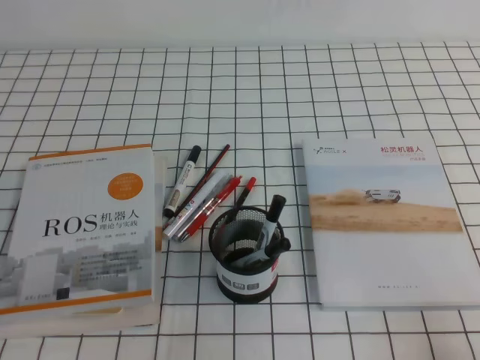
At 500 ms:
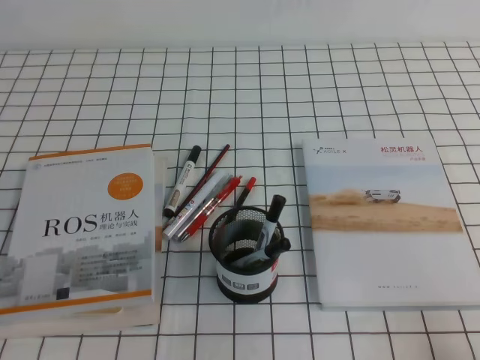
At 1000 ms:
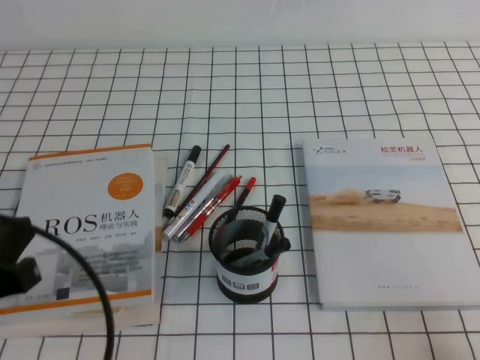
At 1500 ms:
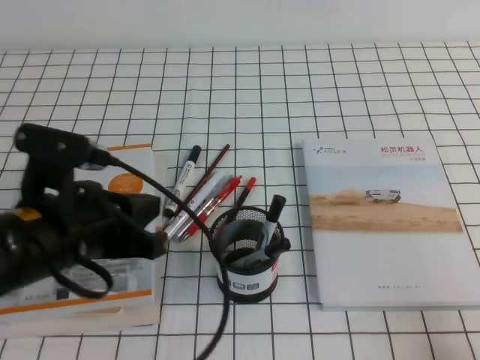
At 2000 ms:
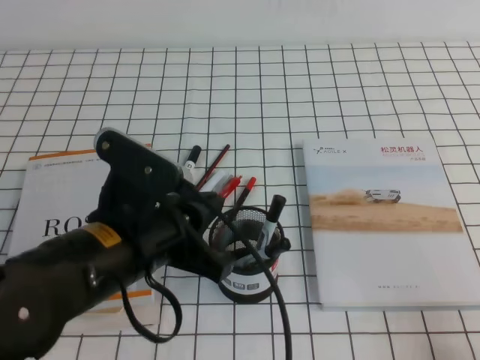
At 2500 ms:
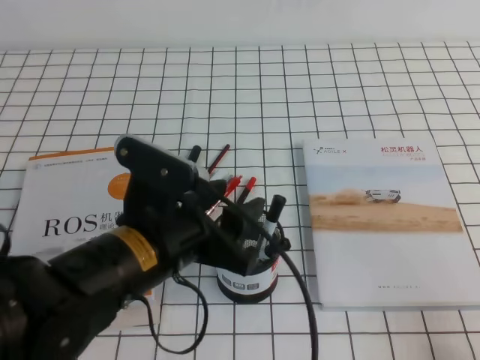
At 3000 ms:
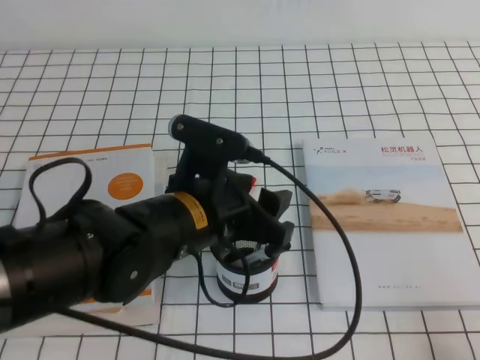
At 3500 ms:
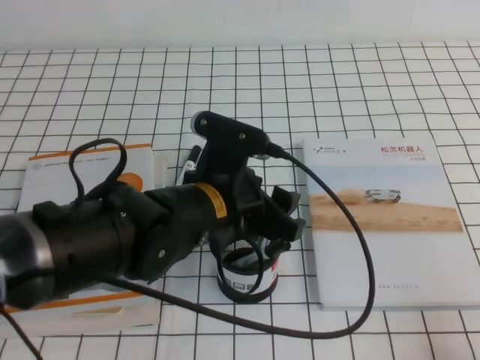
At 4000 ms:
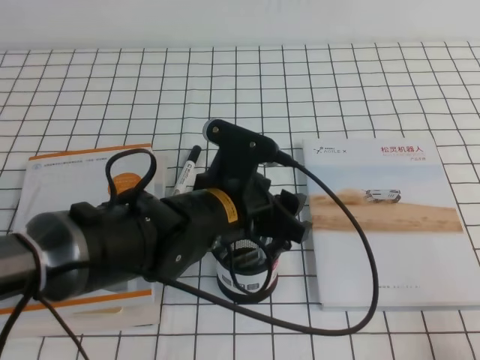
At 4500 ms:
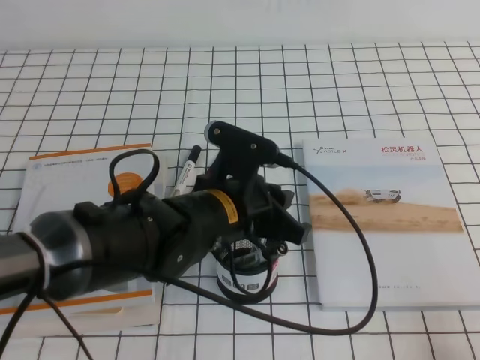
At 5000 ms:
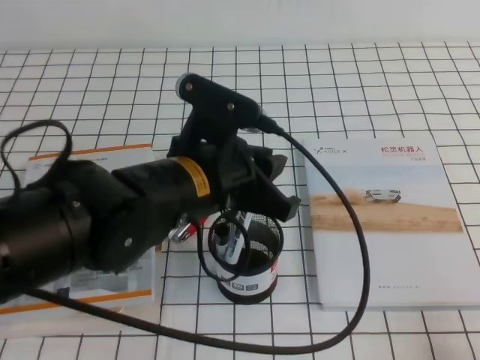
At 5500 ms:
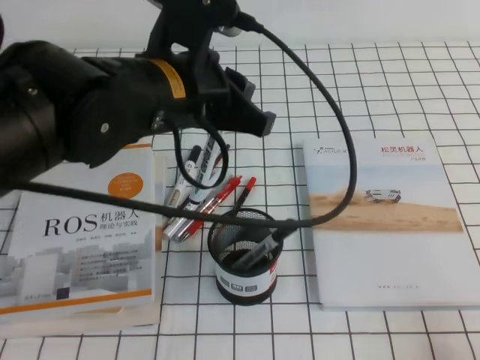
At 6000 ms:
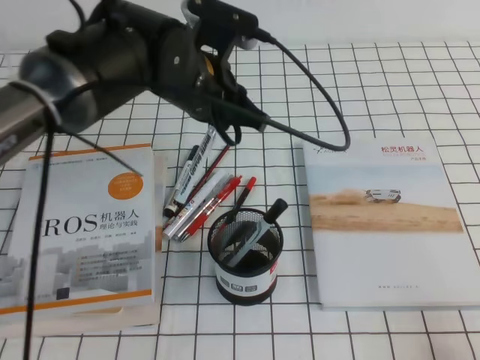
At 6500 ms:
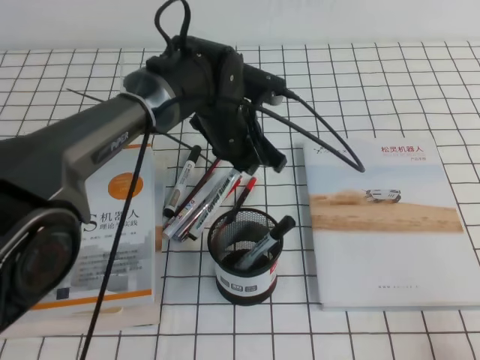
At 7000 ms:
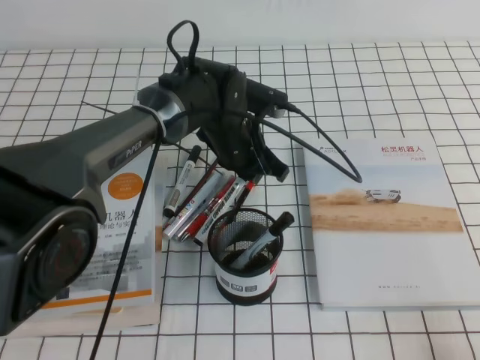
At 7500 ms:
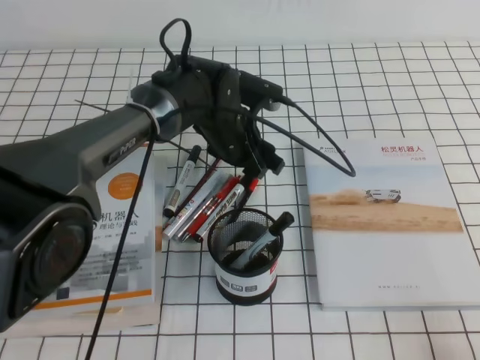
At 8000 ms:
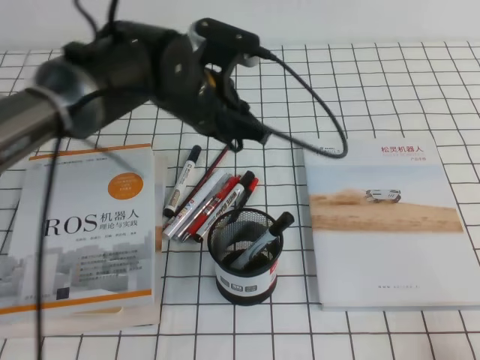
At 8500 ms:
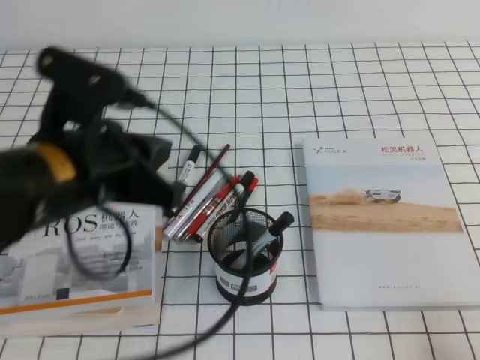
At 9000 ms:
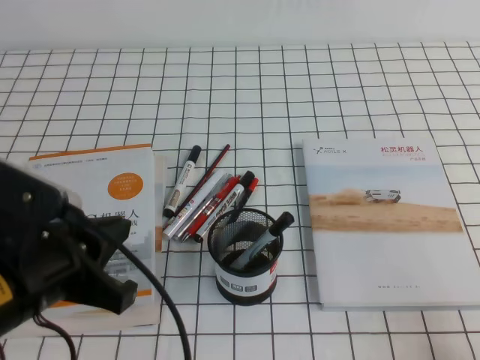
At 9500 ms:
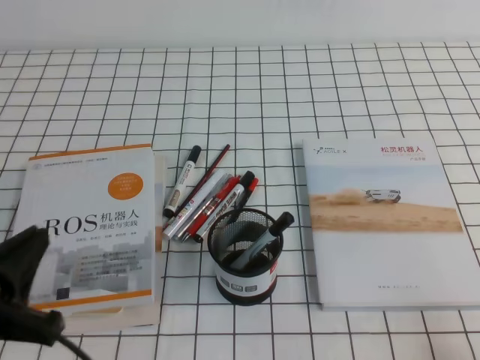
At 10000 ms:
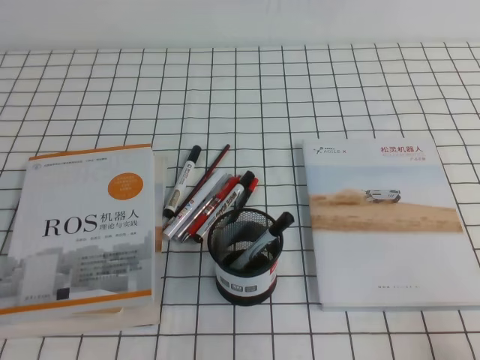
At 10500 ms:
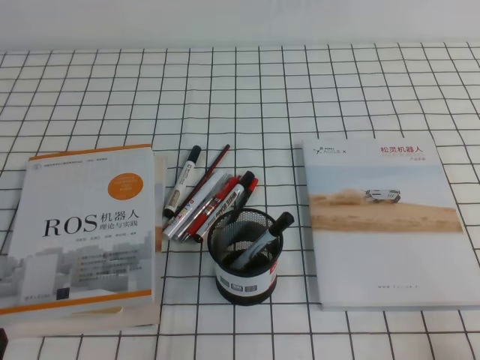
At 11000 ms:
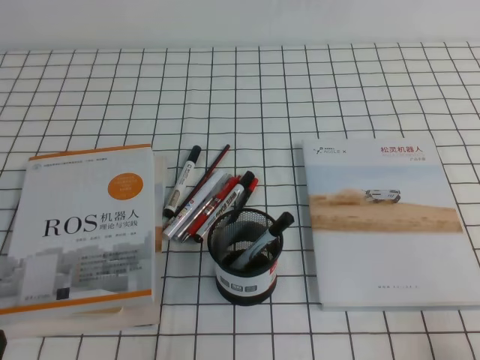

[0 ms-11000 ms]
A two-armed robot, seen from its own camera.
Step, 0 ms to 11000 ms: Pick up the pen from the pen holder.
0 ms to 2000 ms: The left gripper heads to the right, forward and upward, covering about 20 cm.
2000 ms to 3500 ms: The left gripper is displaced to the right and forward by roughly 10 cm, and opens its fingers.
3500 ms to 5500 ms: The left gripper is displaced upward by some 10 cm, and closes up.
5500 ms to 7500 ms: The left gripper goes approximately 20 cm downward and forward, and opens its fingers.
7500 ms to 9000 ms: The left gripper travels backward and to the left by roughly 30 cm, and closes.
9000 ms to 11000 ms: The left gripper heads downward, backward and to the left, covering some 15 cm.
